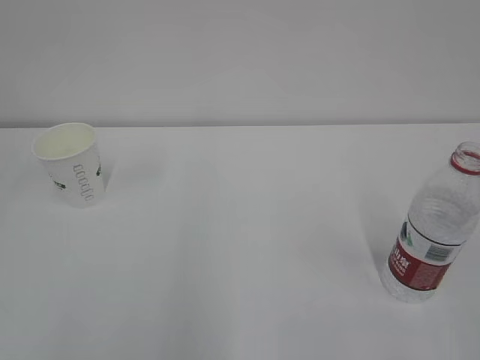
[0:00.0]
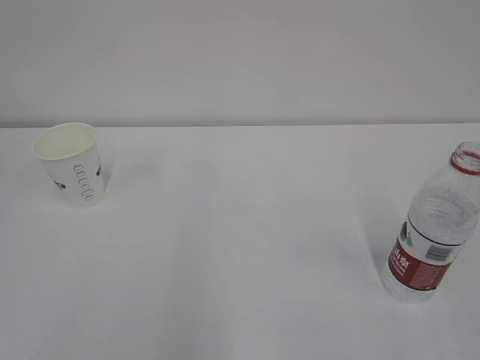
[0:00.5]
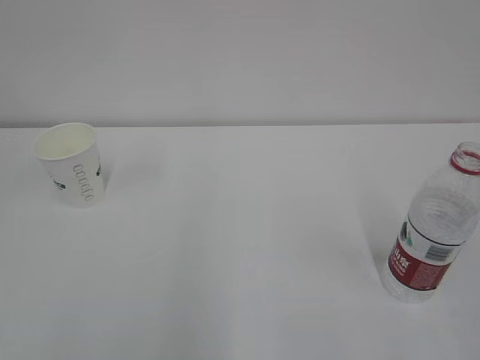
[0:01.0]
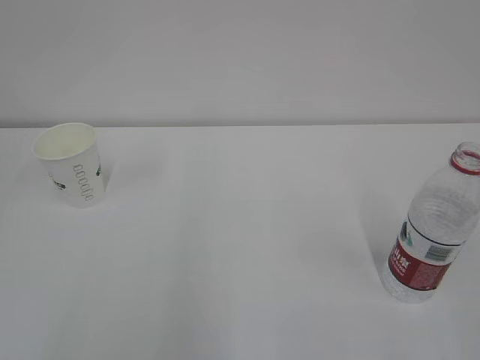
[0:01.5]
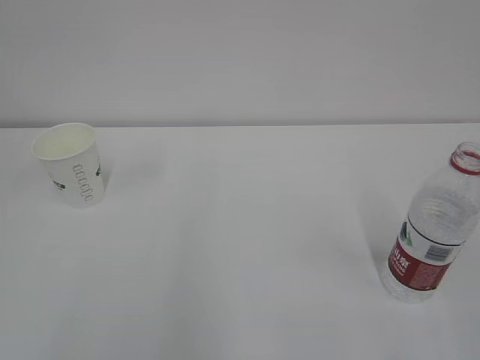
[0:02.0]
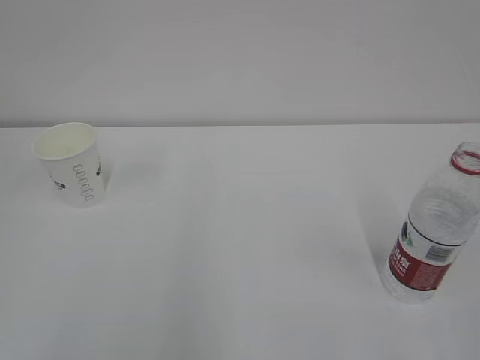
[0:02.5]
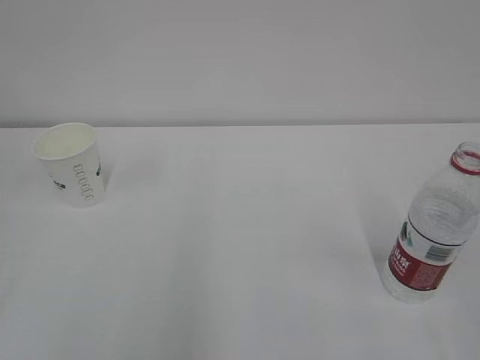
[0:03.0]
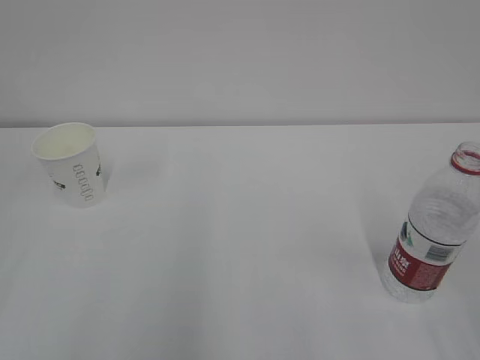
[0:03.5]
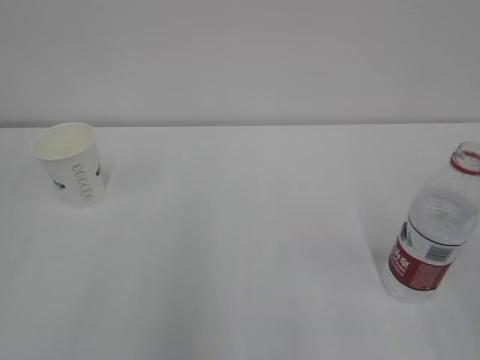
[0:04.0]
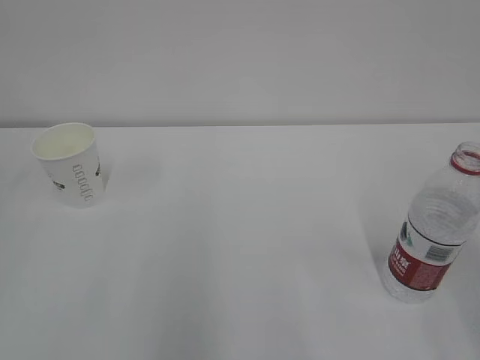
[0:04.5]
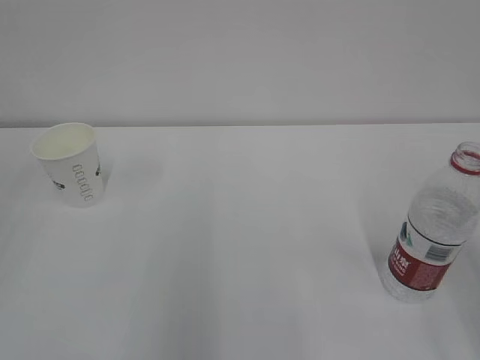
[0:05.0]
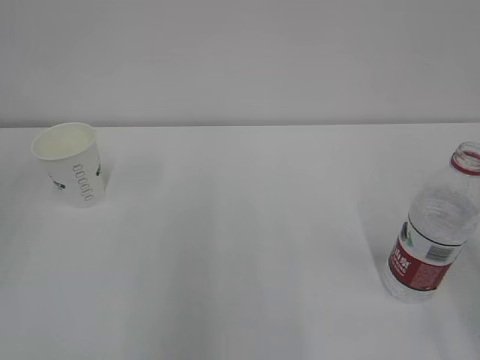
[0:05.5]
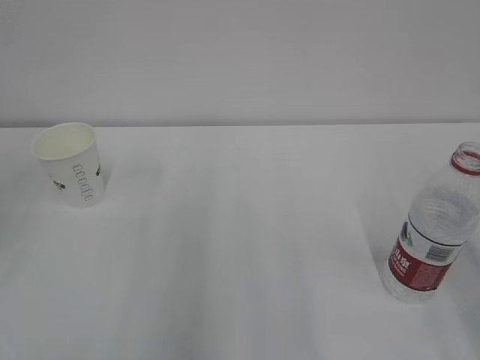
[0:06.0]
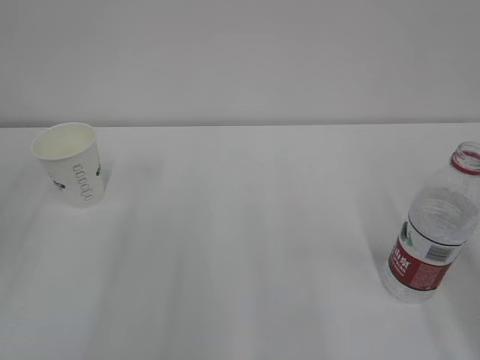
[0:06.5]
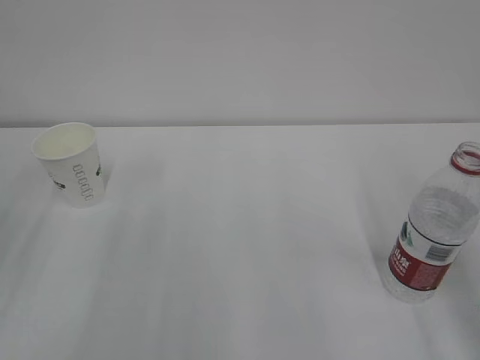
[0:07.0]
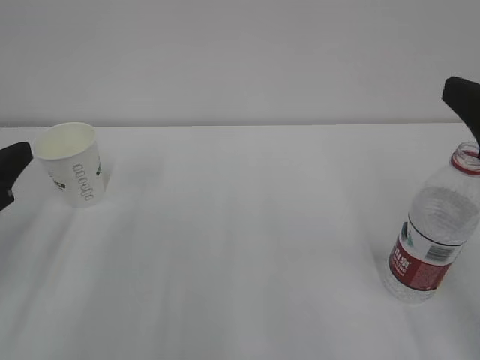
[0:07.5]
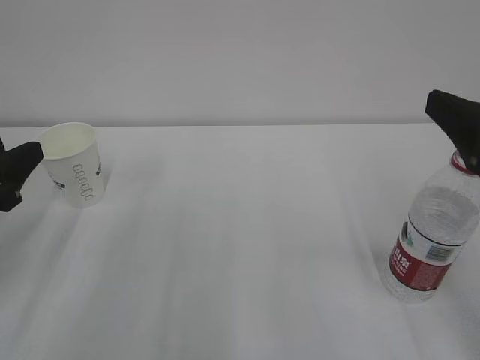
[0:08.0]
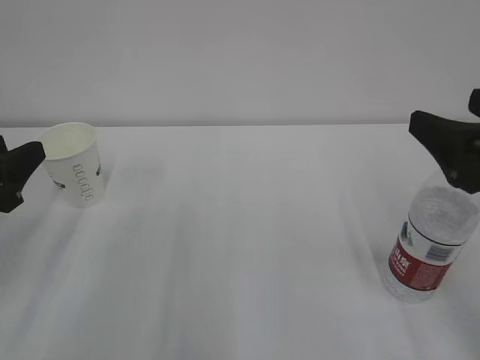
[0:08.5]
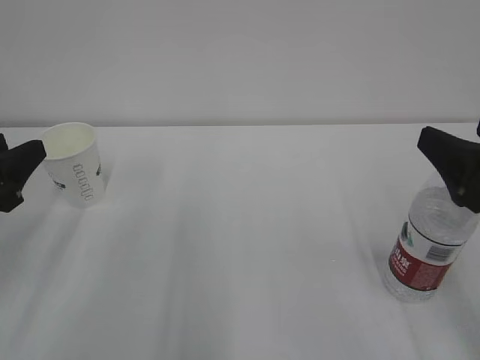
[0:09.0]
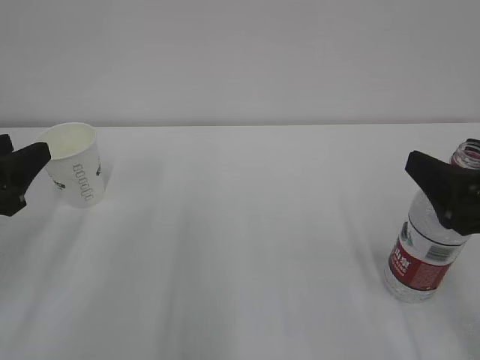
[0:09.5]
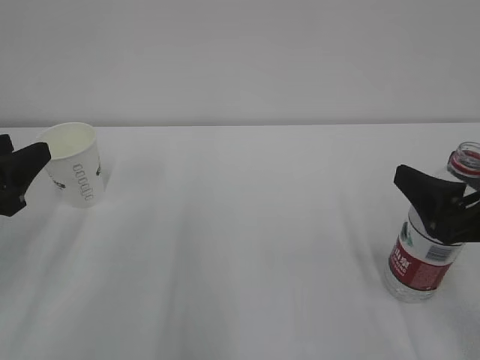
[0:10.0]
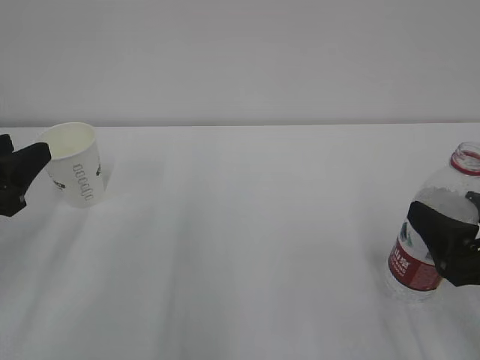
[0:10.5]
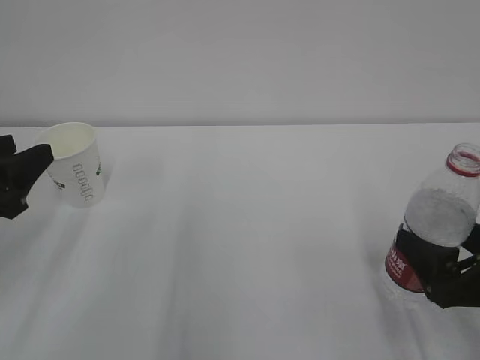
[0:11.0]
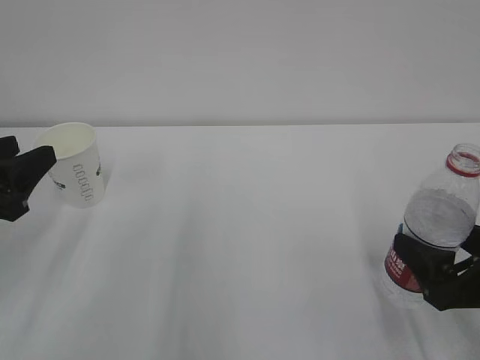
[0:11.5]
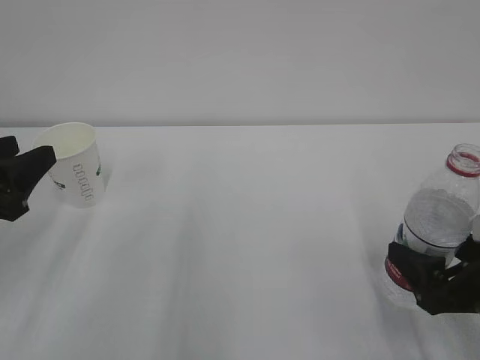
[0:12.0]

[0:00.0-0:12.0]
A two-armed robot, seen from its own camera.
0:06.0 to 0:08.0: The left gripper moves downward, roughly 10 cm; the right gripper goes roughly 10 cm forward and downward, and opens up.
0:08.0 to 0:10.0: The right gripper travels downward by about 10 cm.
0:10.0 to 0:12.0: The right gripper heads downward, covering roughly 5 cm.

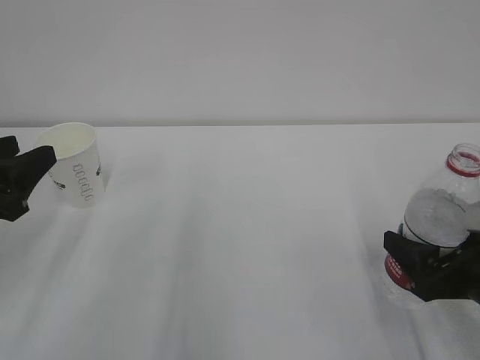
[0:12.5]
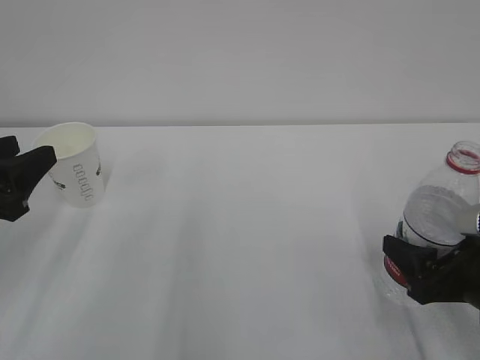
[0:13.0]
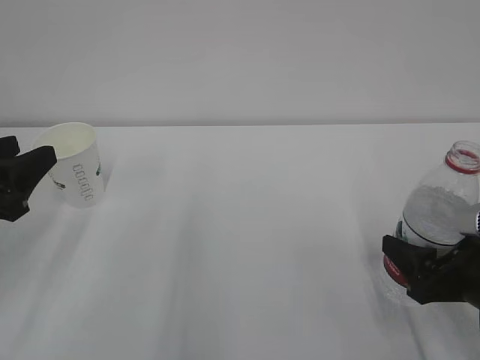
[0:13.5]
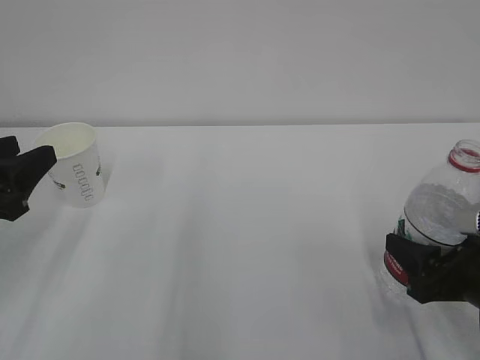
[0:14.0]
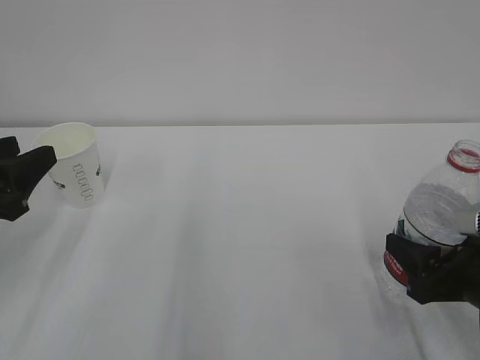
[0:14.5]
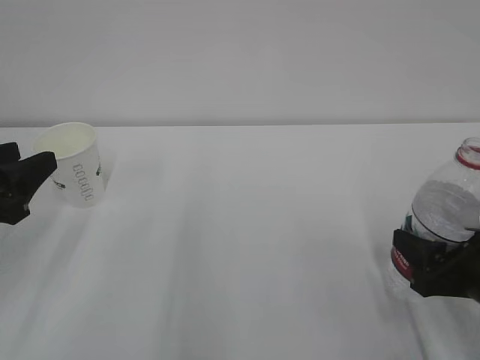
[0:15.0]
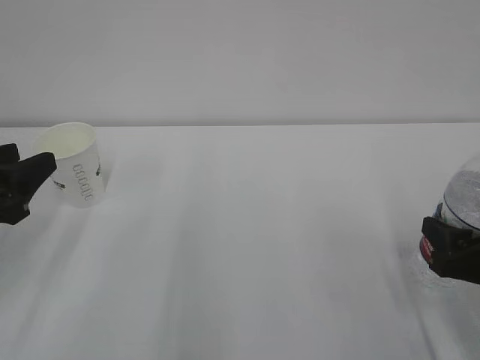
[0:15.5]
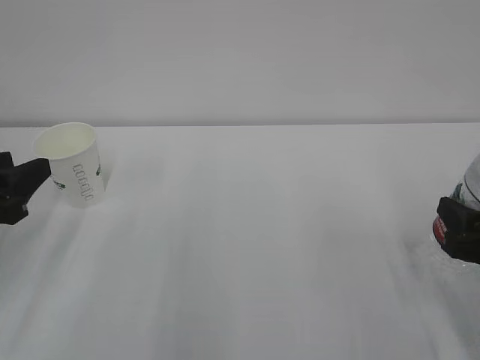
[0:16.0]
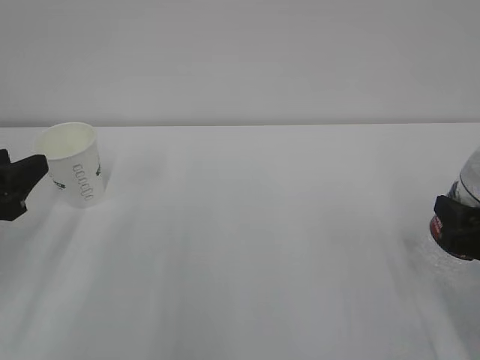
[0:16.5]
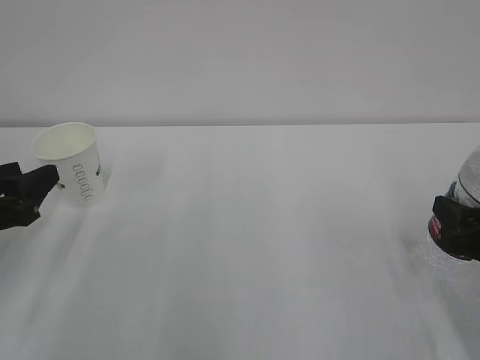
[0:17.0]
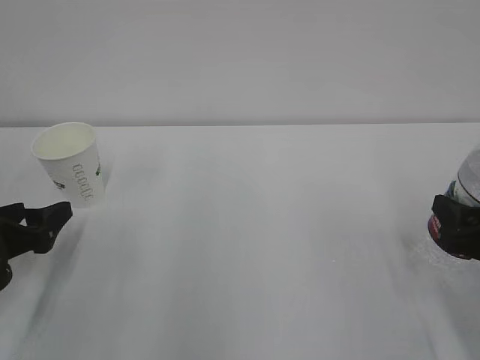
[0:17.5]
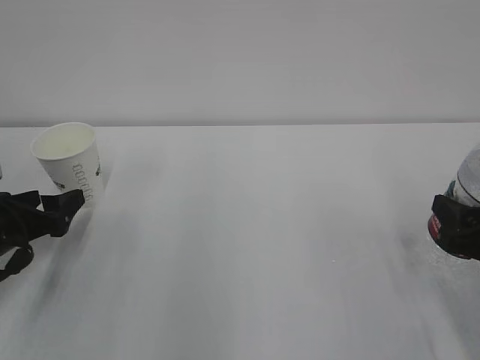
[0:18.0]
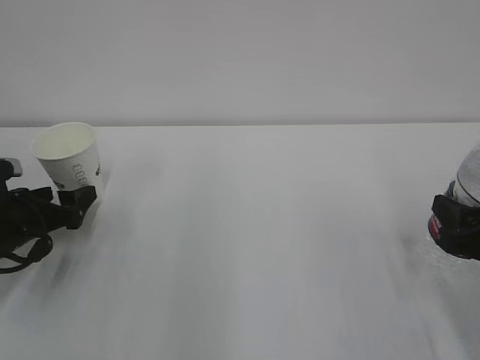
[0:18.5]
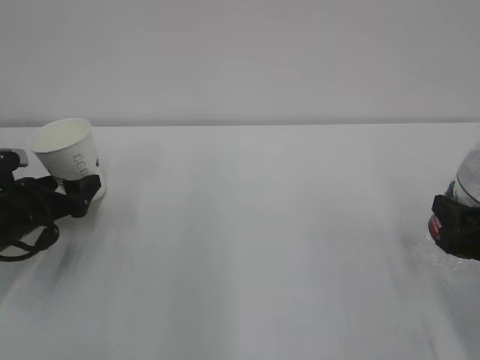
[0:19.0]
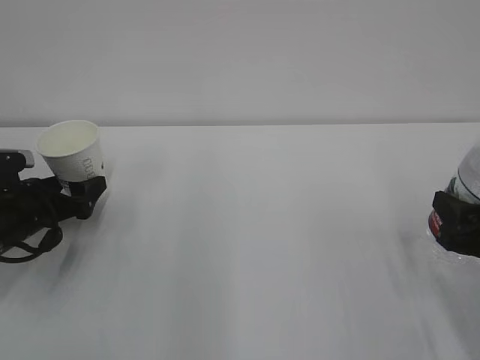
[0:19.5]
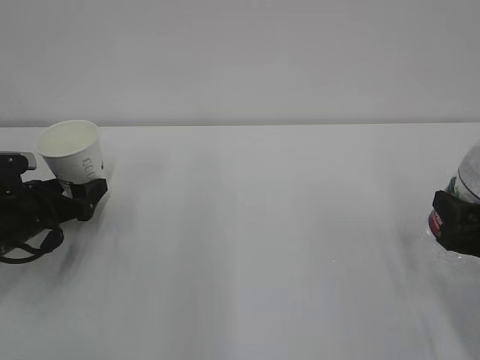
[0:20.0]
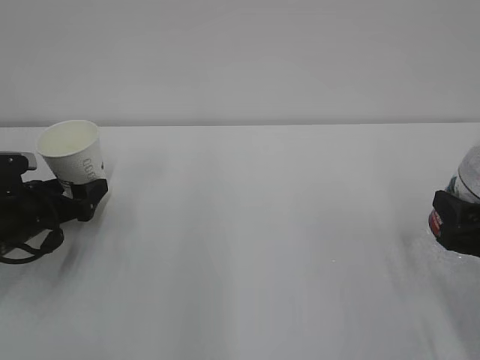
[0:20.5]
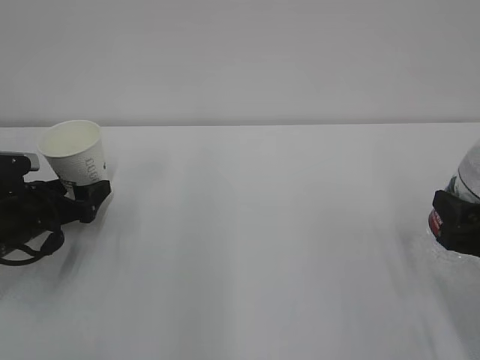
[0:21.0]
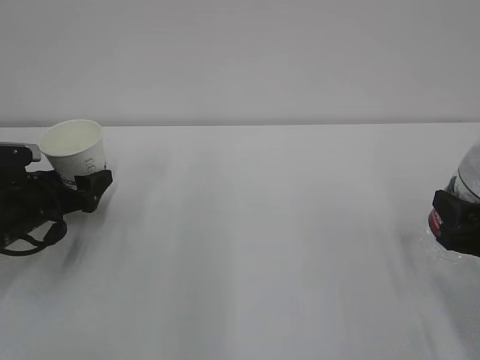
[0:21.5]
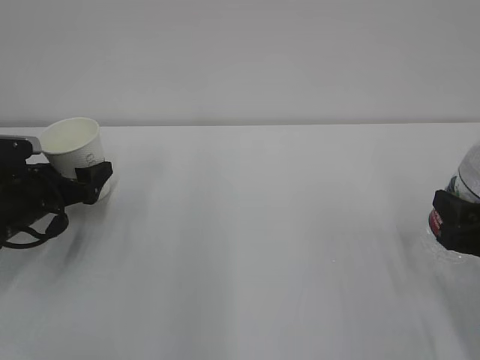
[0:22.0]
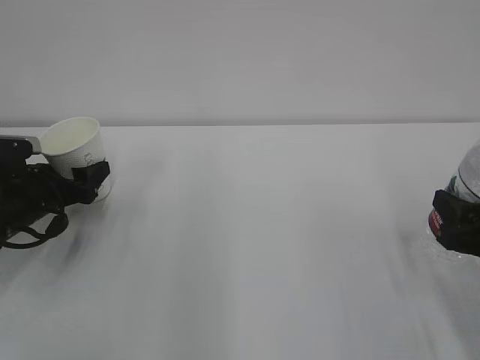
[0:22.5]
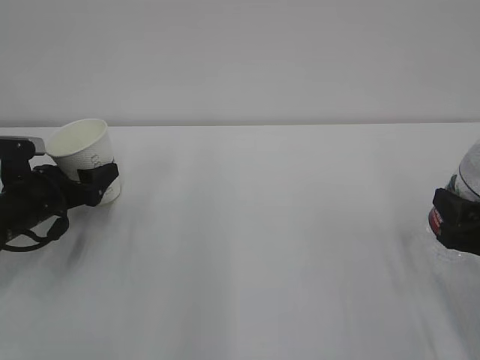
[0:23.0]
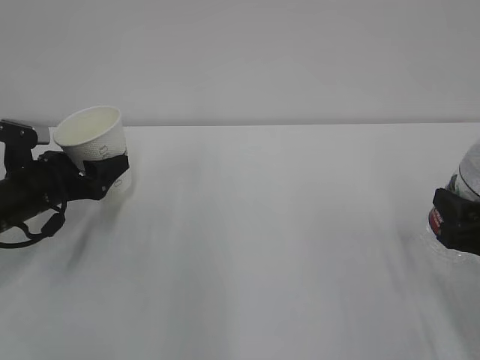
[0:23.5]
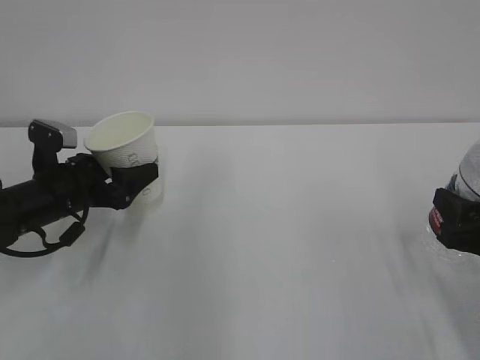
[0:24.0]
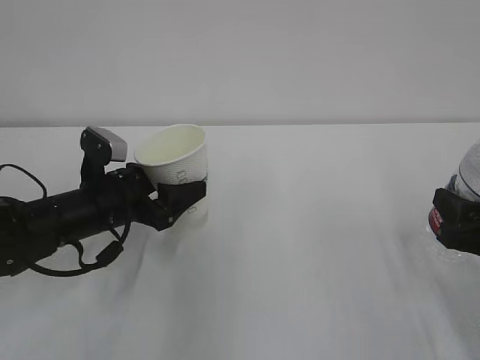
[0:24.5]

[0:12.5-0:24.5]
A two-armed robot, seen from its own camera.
0:12.5 to 0:14.5: The right gripper closes its fingers.
0:14.5 to 0:16.5: The grippers stay close to where they were, moving slightly.
0:16.5 to 0:18.5: The left gripper heads downward and forward, covering roughly 15 cm, and opens its fingers.
0:18.5 to 0:20.5: The grippers stay close to where they were, moving slightly.
0:20.5 to 0:22.5: The left gripper closes its fingers.
0:22.5 to 0:24.5: The left gripper heads to the right, covering approximately 10 cm.

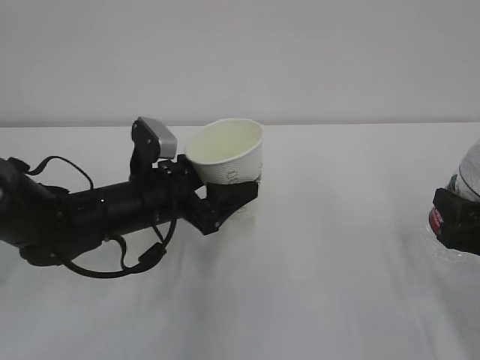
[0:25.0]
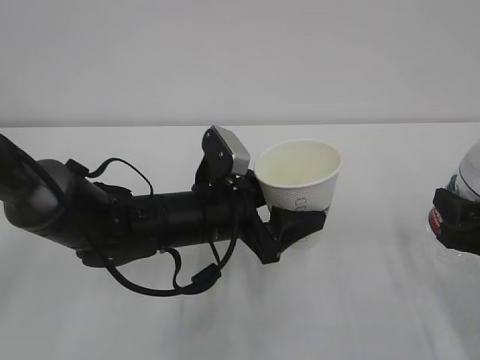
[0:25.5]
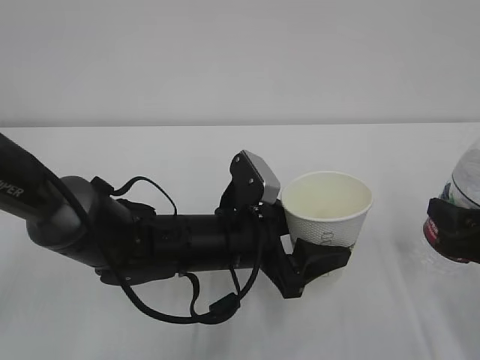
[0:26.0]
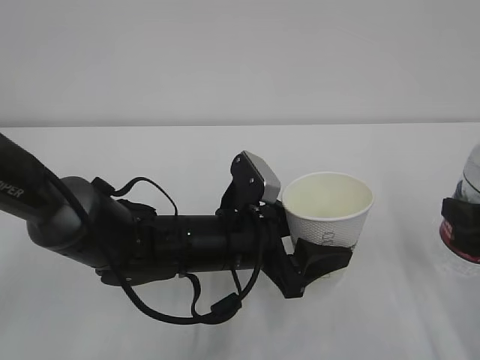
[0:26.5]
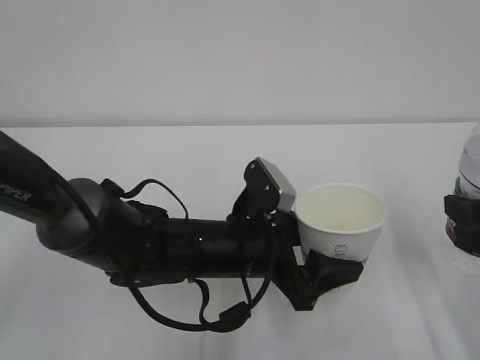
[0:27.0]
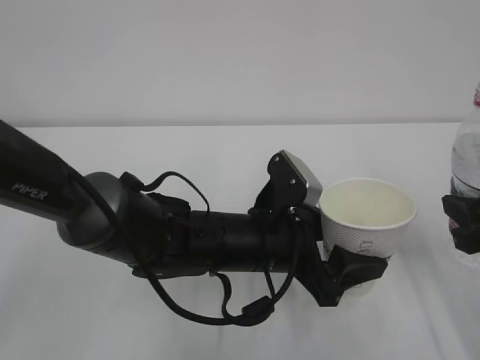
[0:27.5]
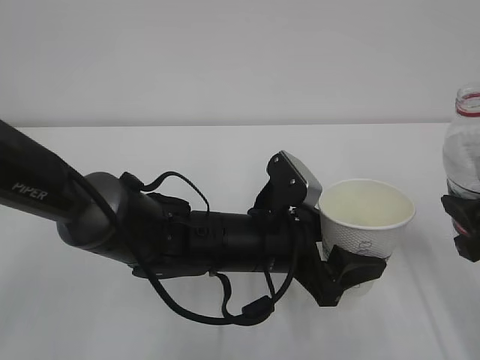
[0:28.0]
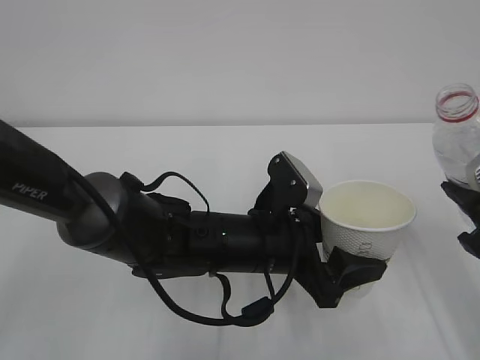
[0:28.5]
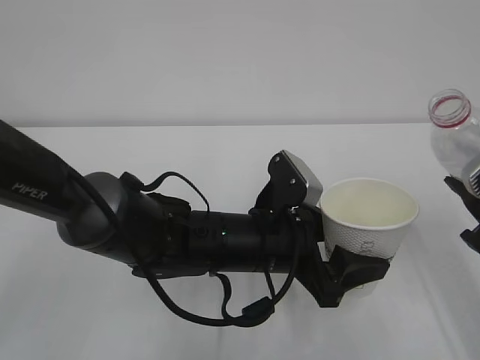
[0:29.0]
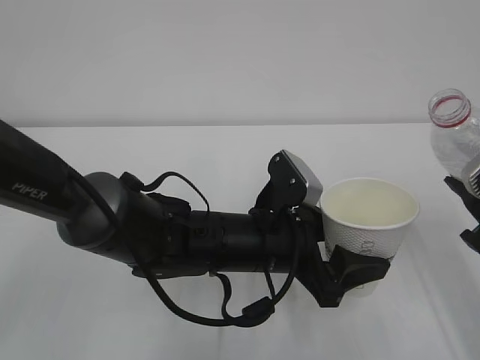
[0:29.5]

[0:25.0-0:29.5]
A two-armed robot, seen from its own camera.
0:25.0 to 0:27.0: The left gripper moves to the right and backward, about 10 cm.
